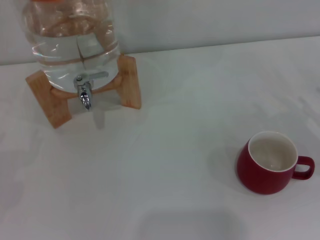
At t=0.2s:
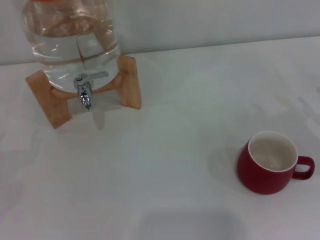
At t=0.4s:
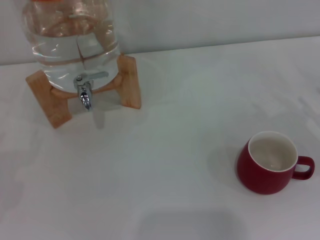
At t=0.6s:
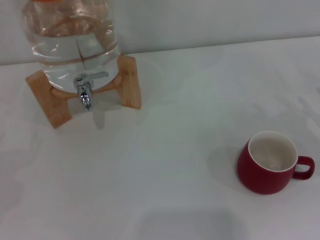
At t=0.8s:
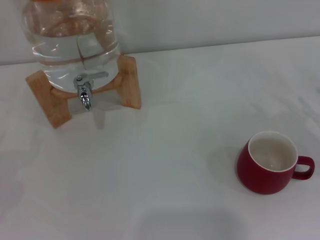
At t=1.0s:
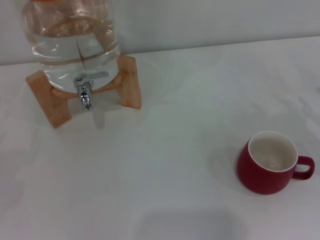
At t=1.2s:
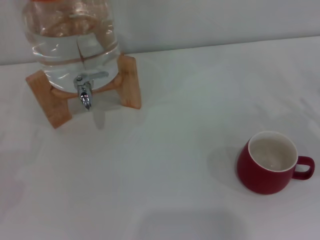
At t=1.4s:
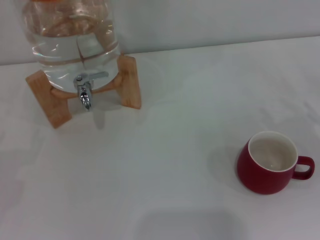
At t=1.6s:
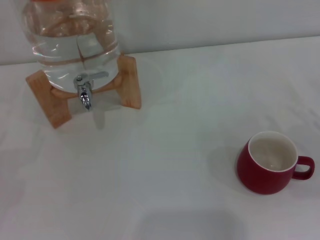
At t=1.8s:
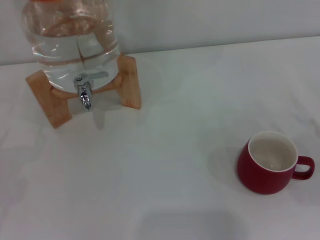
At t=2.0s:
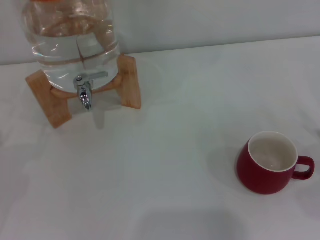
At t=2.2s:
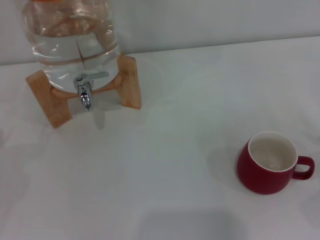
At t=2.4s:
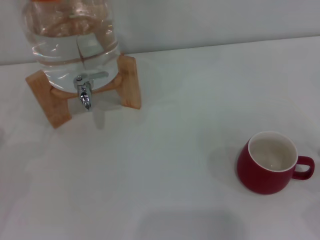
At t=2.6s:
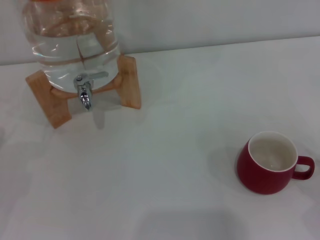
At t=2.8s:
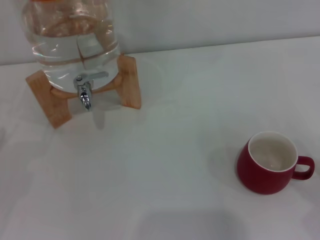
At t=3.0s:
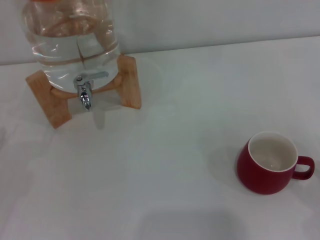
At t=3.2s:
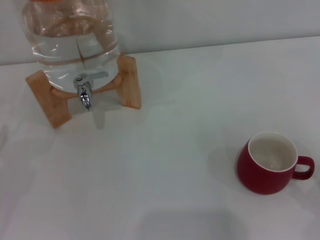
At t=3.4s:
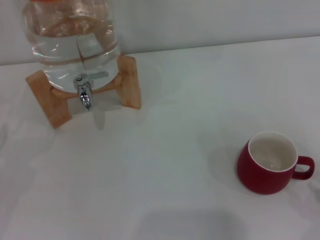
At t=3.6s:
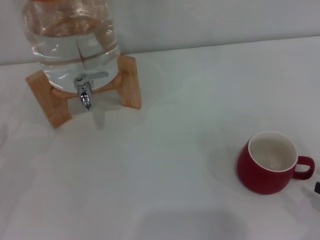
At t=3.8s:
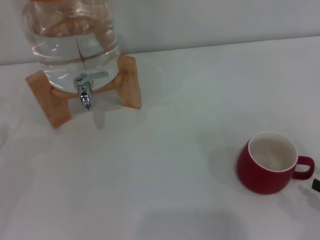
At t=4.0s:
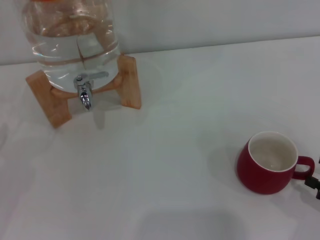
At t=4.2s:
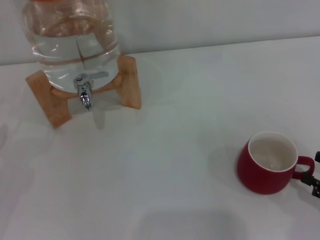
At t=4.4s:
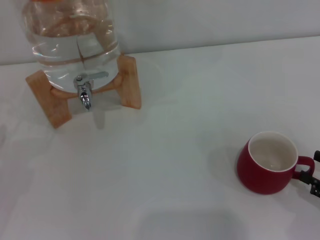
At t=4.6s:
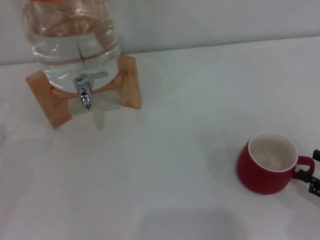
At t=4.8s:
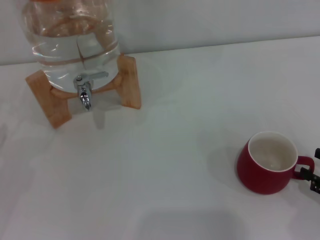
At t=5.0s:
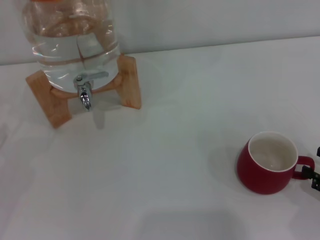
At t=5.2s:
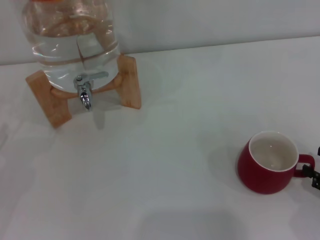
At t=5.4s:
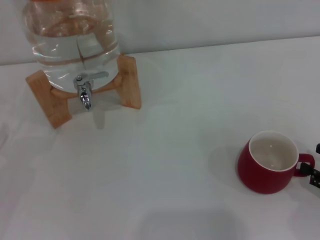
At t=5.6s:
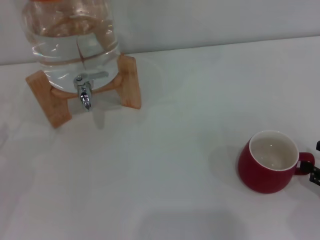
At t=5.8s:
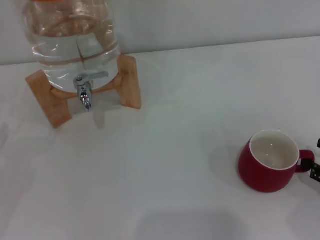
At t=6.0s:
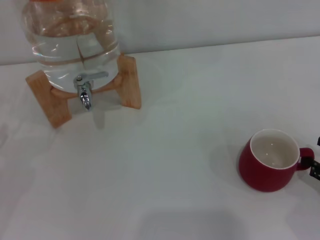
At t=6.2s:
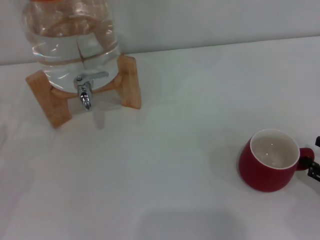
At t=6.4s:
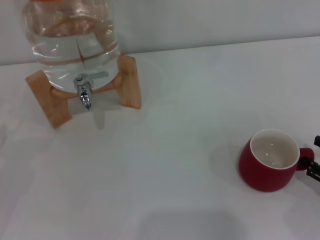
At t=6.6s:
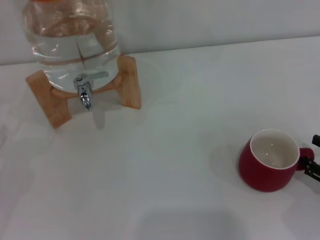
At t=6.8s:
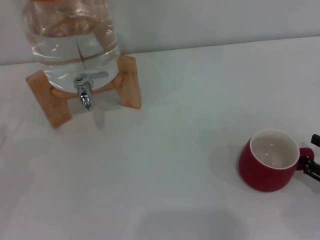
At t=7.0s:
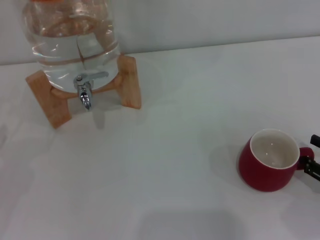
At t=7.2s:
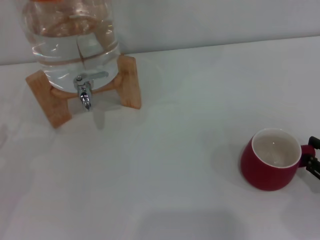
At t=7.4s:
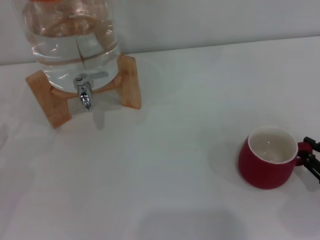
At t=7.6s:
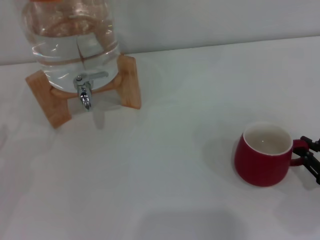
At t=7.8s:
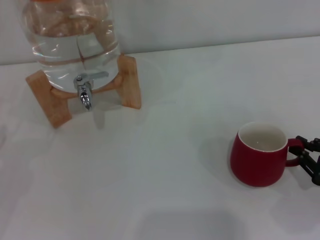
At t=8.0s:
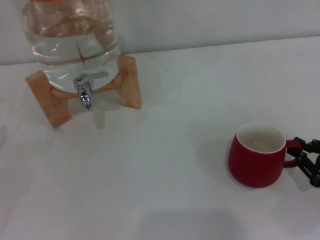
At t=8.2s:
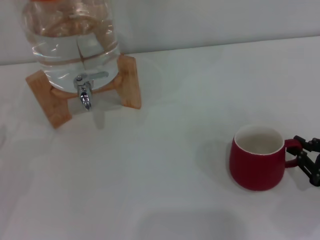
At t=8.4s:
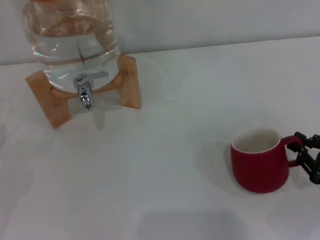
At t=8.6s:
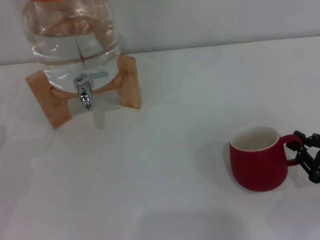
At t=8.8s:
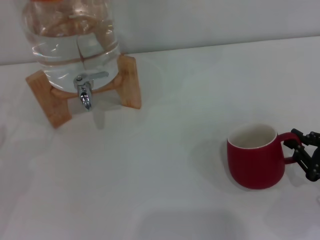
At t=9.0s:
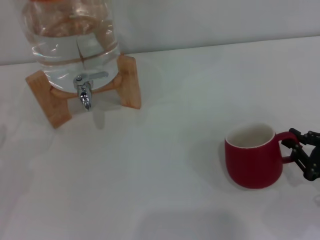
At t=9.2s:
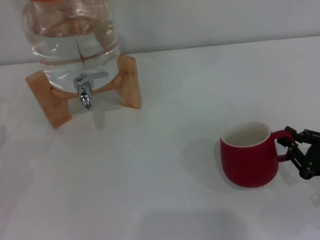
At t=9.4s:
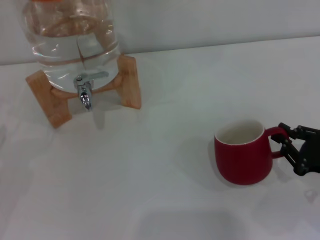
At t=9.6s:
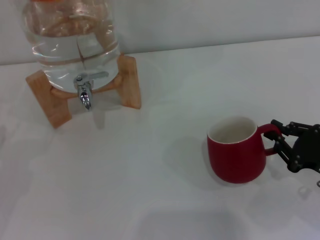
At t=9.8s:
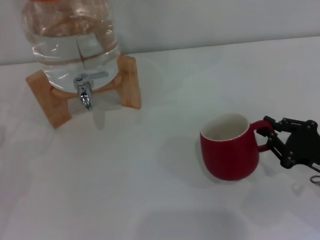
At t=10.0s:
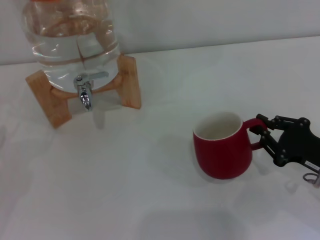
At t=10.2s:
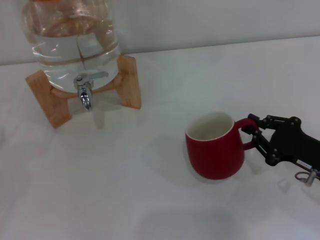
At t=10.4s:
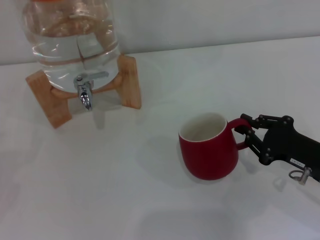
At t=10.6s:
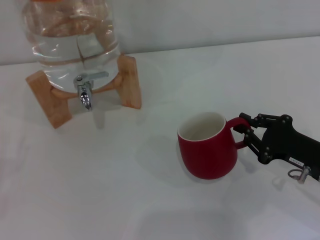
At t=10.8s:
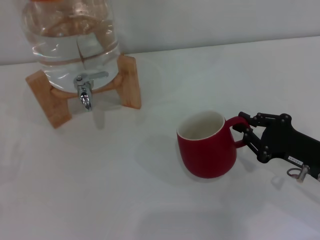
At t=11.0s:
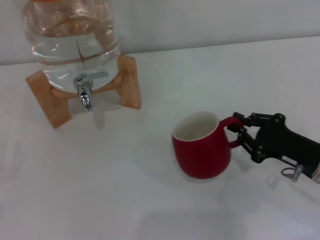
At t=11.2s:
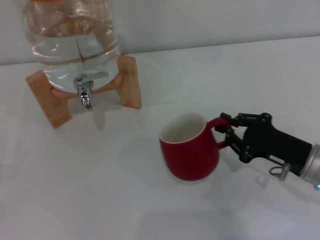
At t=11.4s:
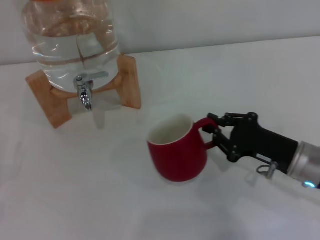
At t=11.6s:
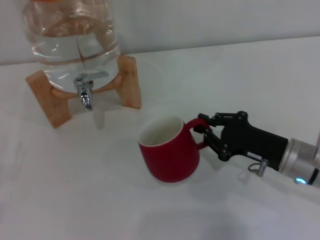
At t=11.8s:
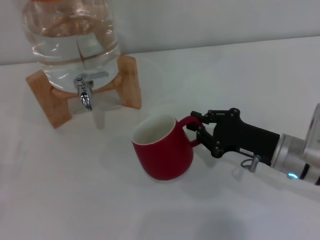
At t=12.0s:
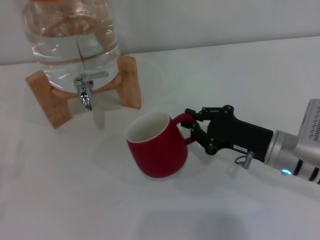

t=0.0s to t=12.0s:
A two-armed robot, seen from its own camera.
Task of the whole recording: the right gripper pick up the red cup and place it horizontally under the faucet, the left gripper turn on the faucet to fill the cup, and then turn off the faucet.
t=4.4s to t=6.0s: The grippers move only a little.
t=6.0s to t=7.6s: The right gripper closes up.
t=7.6s to t=9.0s: The grippers stay close to where they were, moving slightly.
t=9.0s to t=10.4s: The right gripper heads to the left, covering some 5 cm.
t=10.4s to t=12.0s: The right gripper shifts about 10 cm to the left and forward.

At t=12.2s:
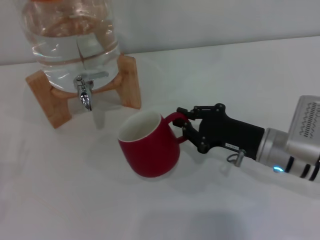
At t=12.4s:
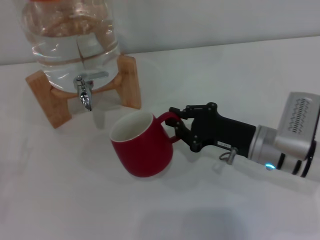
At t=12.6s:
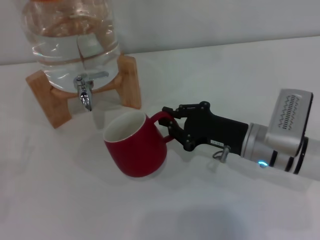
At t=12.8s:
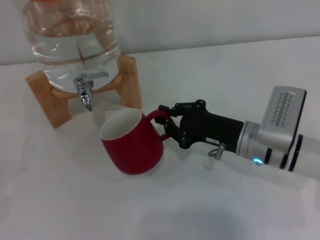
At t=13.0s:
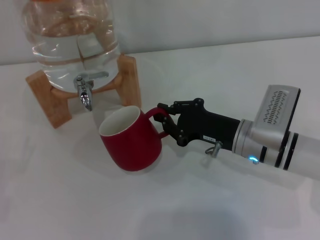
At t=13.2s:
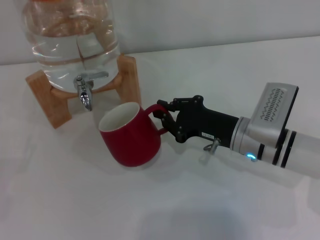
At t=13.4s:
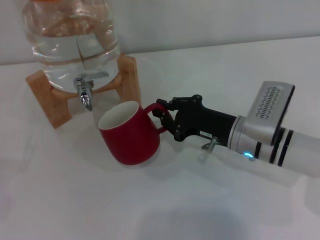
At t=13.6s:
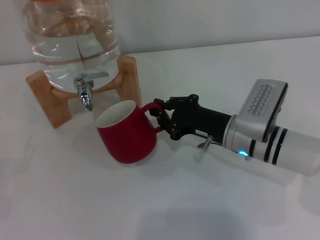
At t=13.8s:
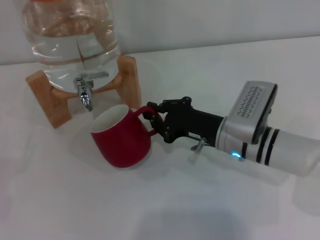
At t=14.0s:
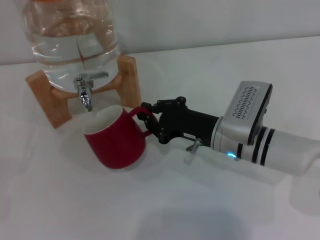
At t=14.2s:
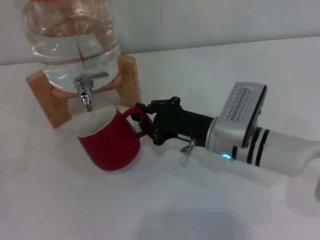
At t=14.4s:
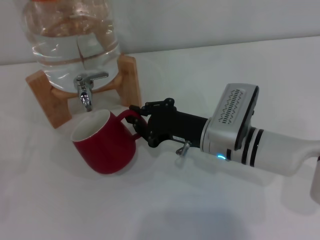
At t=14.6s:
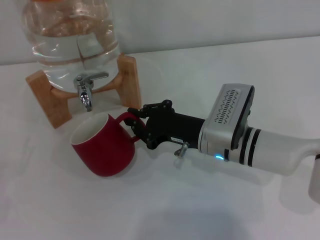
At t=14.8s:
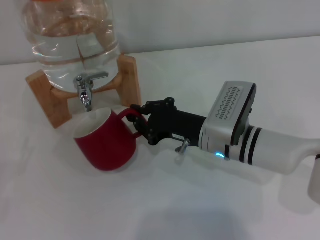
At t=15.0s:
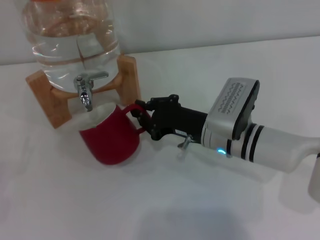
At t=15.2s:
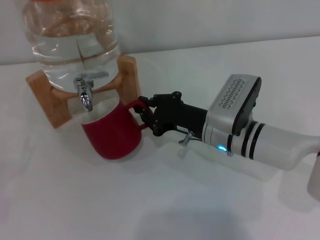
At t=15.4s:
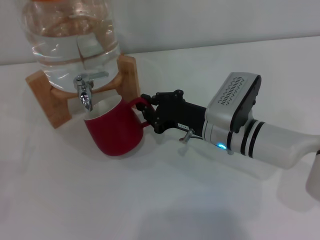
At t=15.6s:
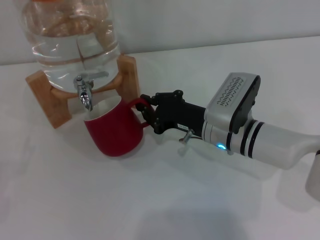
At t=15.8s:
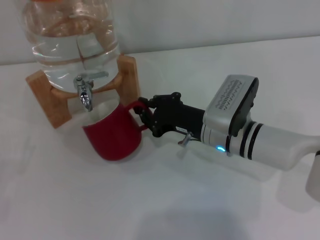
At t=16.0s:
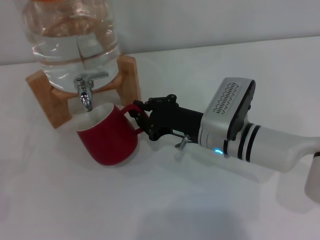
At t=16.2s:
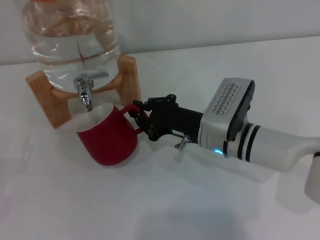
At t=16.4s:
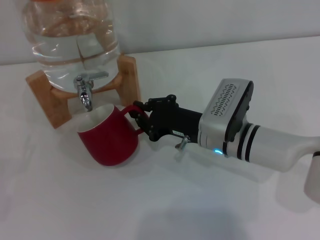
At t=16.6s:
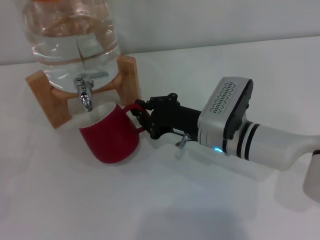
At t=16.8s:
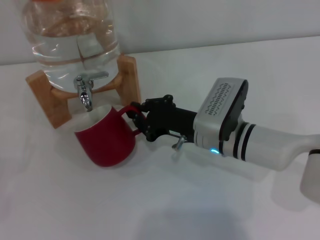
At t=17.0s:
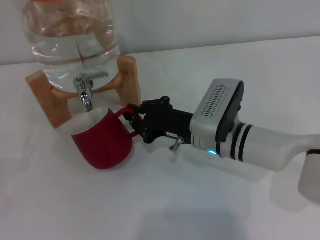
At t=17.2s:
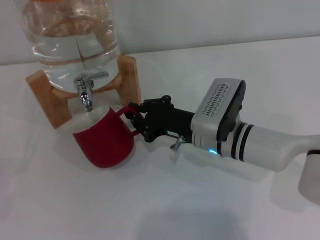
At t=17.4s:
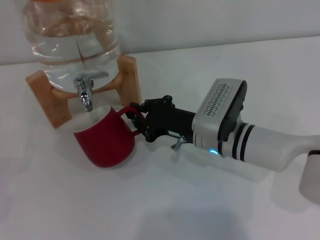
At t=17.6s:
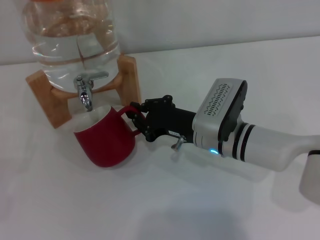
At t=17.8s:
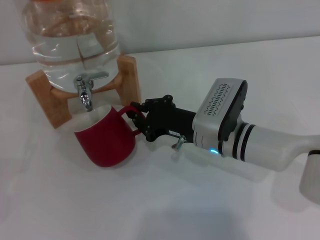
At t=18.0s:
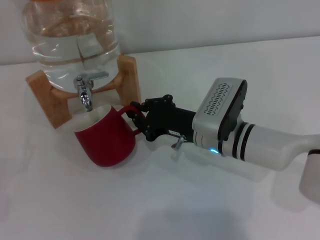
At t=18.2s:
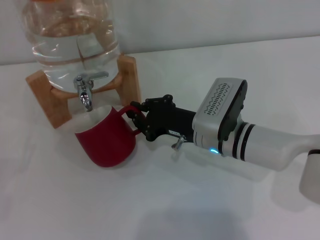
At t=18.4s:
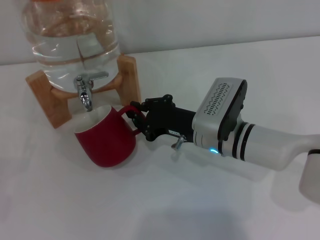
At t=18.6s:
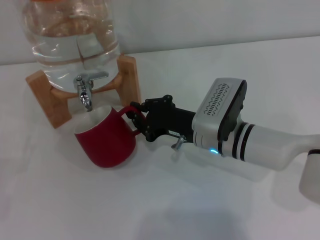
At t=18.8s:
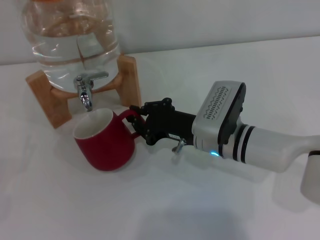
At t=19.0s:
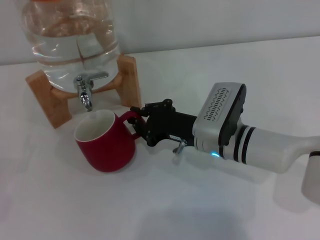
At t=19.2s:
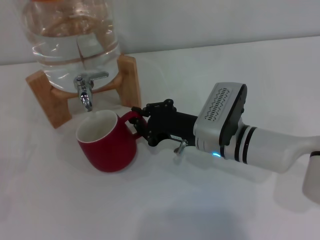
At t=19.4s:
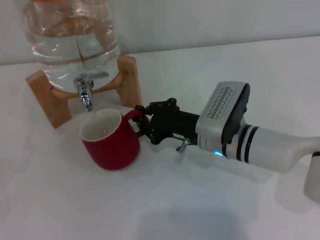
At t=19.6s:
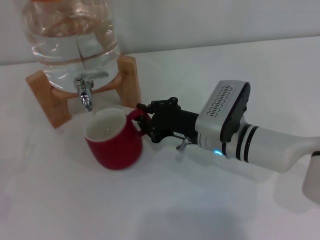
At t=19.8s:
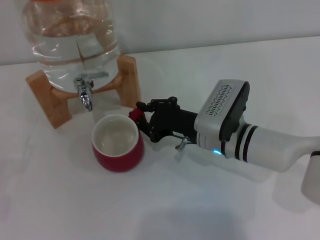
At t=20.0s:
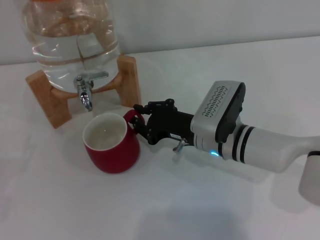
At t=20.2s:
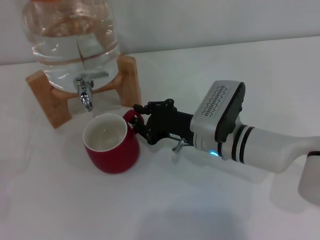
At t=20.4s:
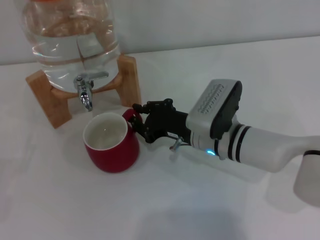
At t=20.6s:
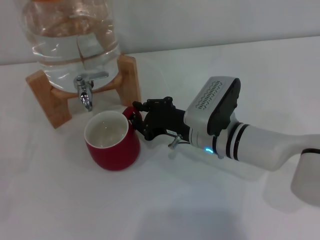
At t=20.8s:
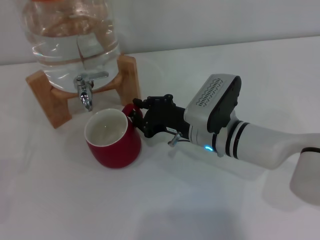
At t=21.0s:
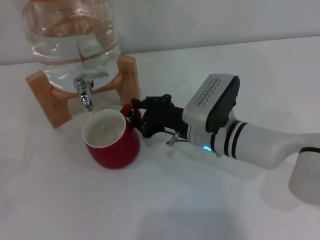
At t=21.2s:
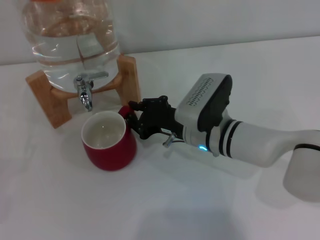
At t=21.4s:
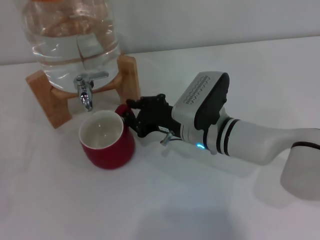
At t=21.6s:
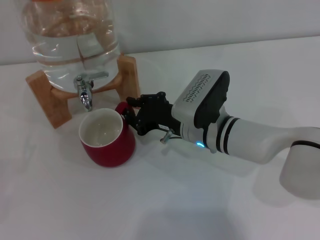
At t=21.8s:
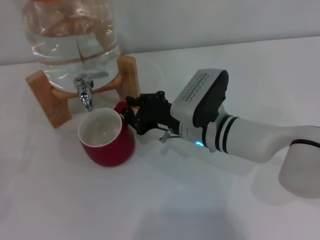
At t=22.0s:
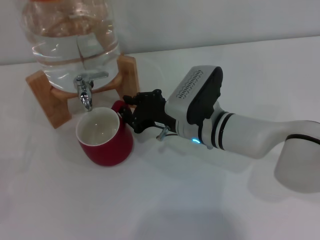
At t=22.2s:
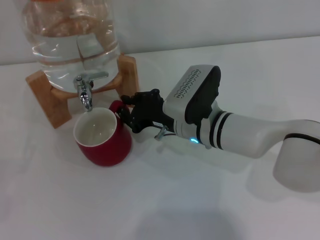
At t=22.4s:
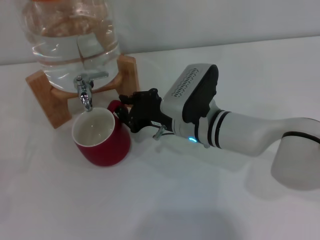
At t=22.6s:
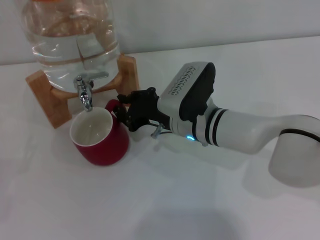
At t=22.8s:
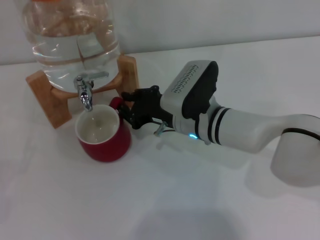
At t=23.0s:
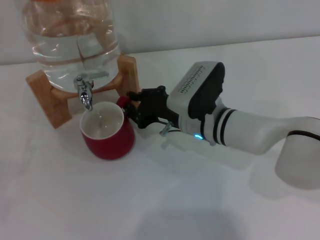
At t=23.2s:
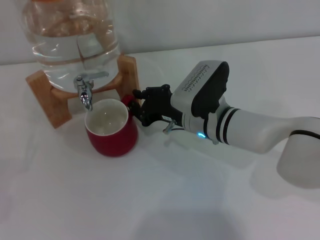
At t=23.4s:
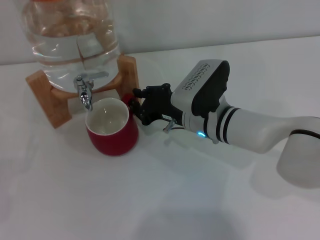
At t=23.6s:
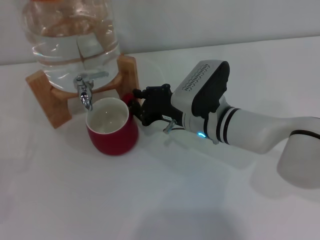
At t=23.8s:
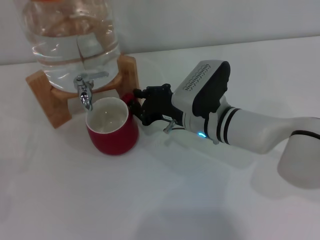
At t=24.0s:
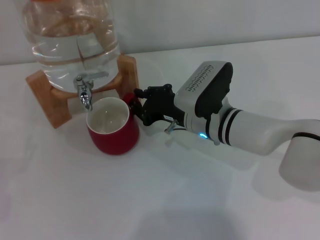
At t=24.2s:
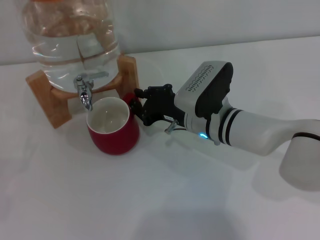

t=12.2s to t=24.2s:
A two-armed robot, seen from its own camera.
Task of the whole recording: the right gripper pick up the red cup and place it horizontally under the faucet, the left gripper turn on the faucet to fill the cup, and then turn off the faucet.
t=12.2s to t=13.8s: The right gripper travels to the left by roughly 5 cm.
t=13.8s to t=15.2s: The grippers stay close to where they were, moving slightly.
t=15.2s to t=16.6s: Neither gripper changes place.
t=16.6s to t=19.8s: Neither gripper changes place.
t=19.8s to t=24.2s: There are only small adjustments of the grippers.
